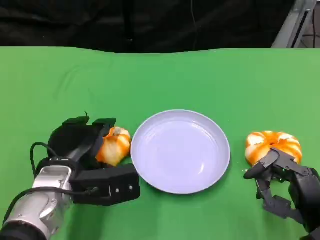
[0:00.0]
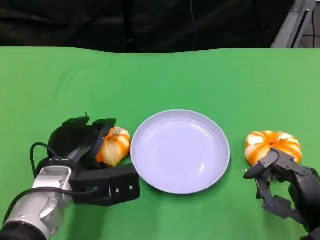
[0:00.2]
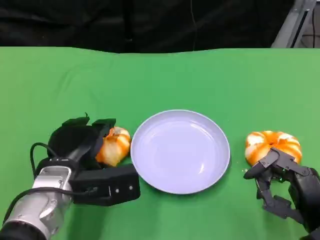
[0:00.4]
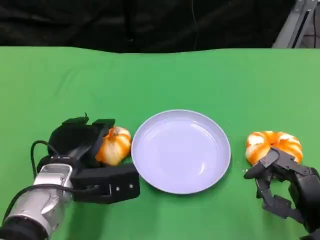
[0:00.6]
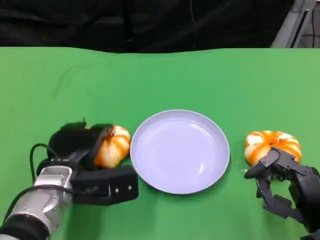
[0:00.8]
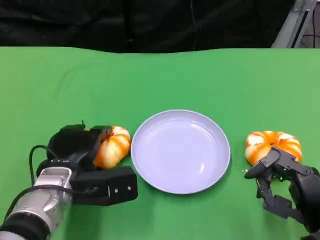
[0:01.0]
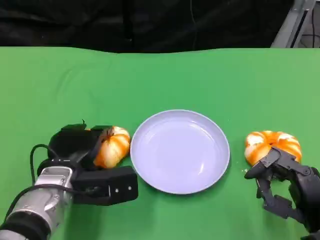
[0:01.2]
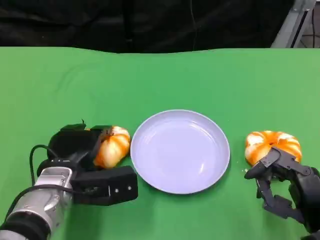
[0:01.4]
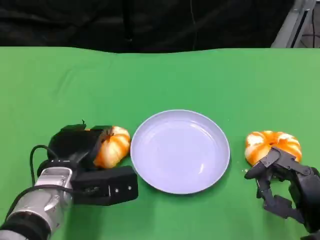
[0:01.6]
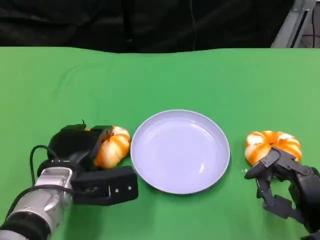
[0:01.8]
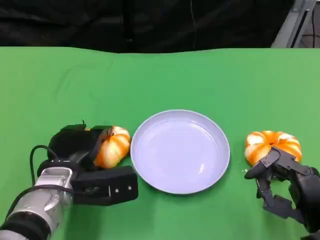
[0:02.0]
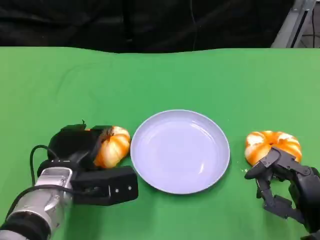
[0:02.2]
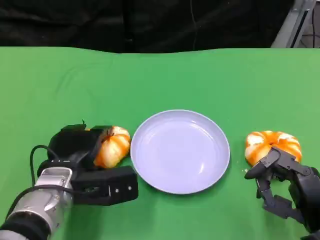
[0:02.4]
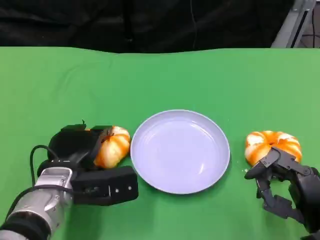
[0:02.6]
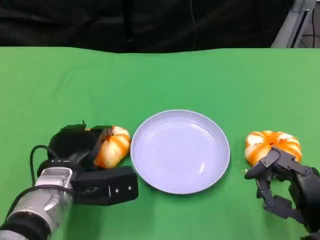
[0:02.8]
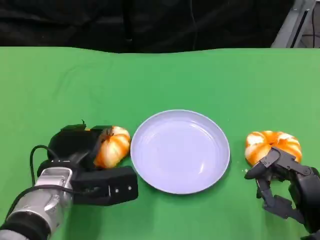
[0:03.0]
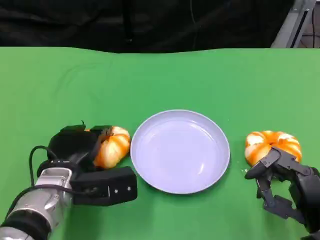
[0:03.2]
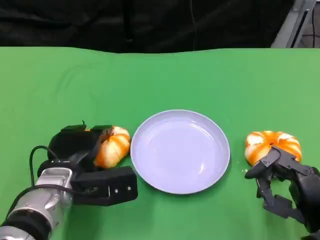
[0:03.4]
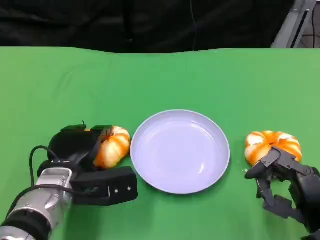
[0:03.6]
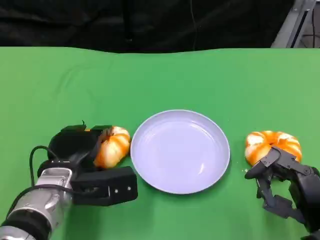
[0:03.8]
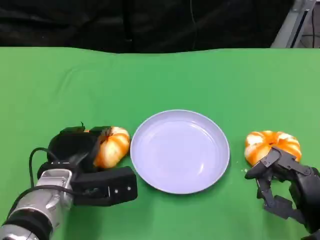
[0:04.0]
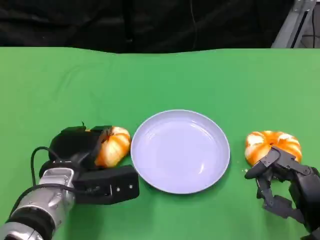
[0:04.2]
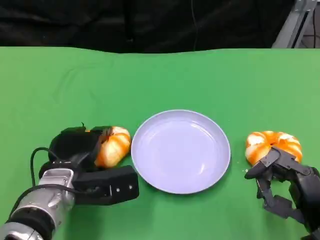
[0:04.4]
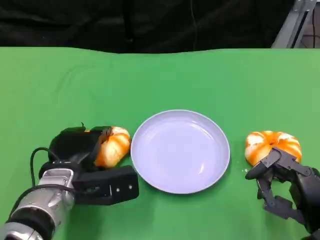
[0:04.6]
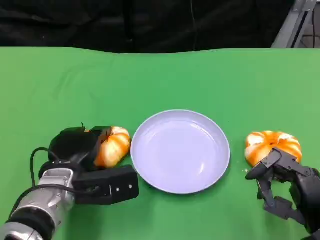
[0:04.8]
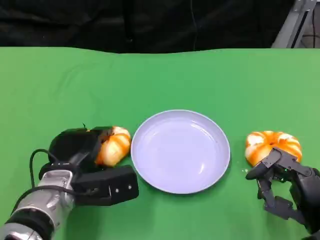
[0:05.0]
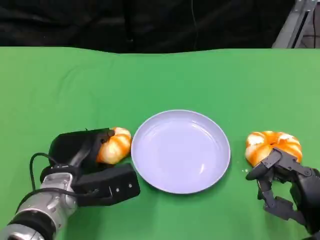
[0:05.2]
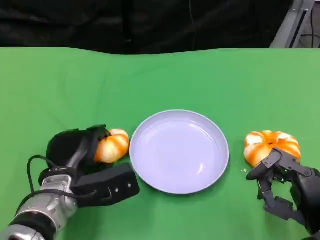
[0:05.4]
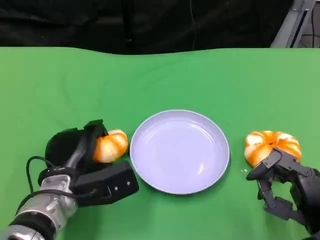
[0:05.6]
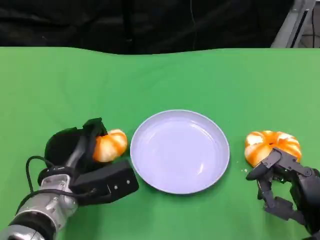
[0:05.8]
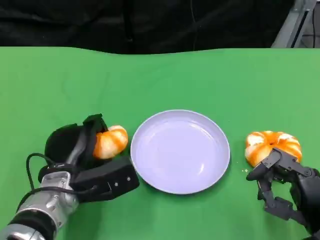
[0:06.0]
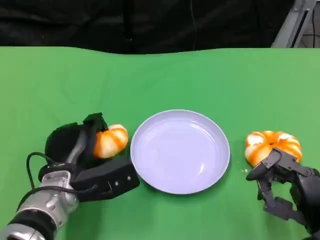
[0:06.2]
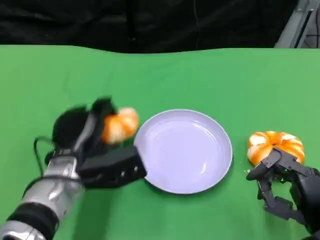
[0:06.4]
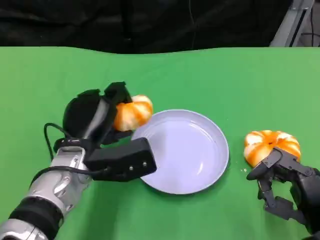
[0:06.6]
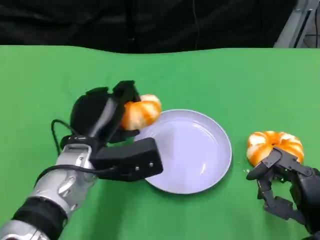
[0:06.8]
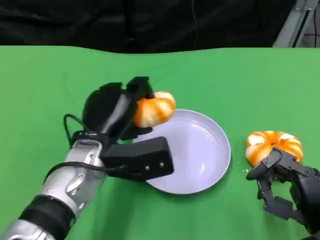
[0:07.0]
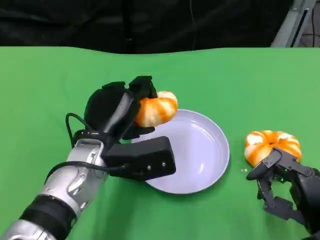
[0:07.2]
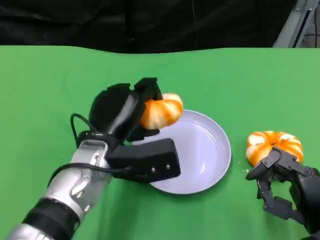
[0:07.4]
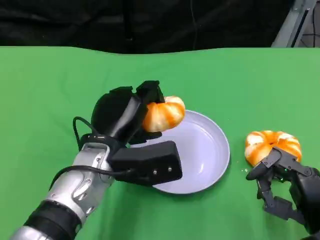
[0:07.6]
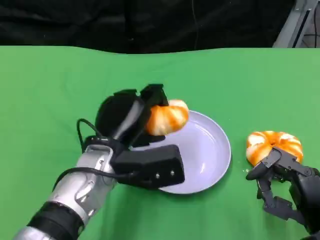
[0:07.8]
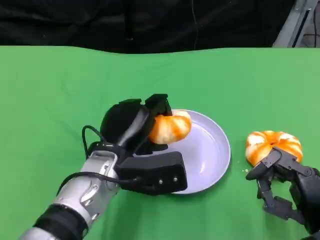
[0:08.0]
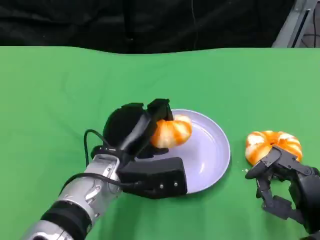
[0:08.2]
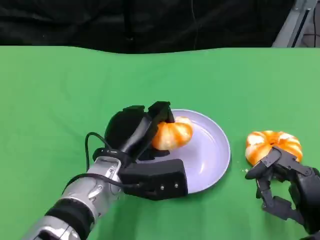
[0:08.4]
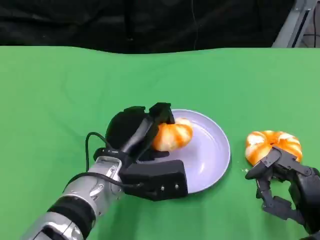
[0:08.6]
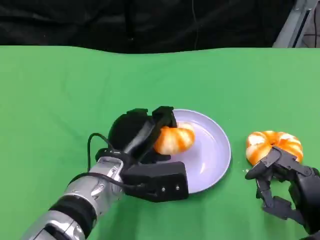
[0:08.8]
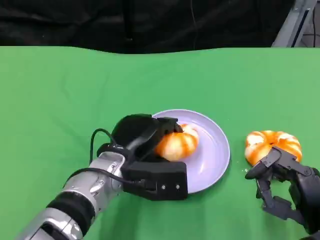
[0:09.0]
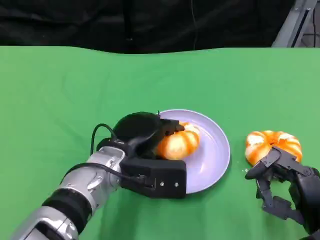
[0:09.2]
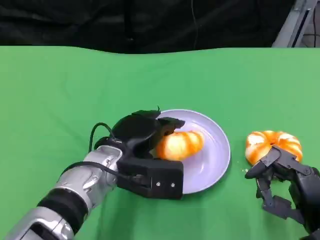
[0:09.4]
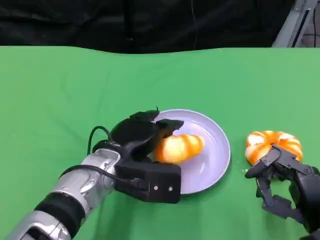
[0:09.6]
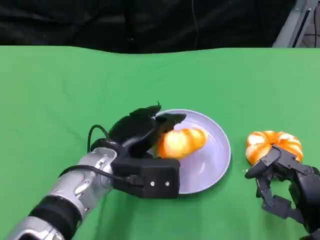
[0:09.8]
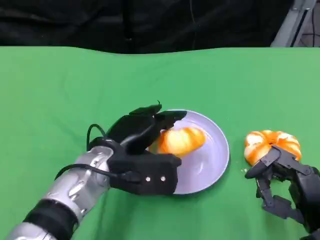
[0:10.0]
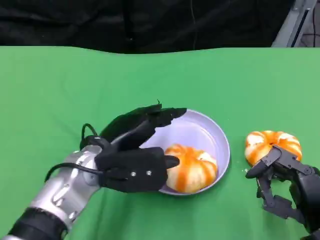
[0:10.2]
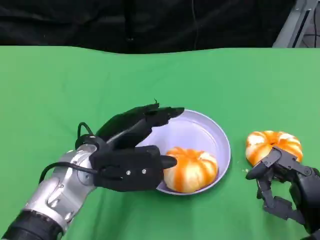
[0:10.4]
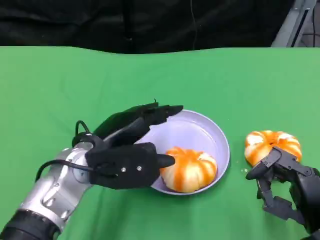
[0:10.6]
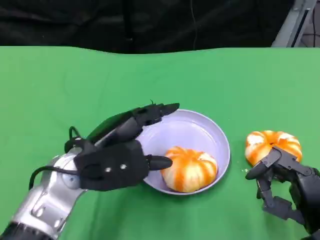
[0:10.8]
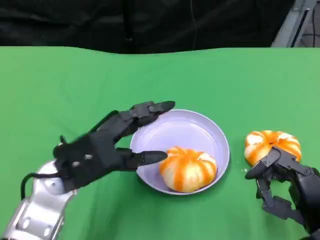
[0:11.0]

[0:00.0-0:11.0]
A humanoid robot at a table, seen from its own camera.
Task of the whole recording: Grasp the bread from the table and place it into the plate.
0:00.0 to 0:01.6: The hands make only small movements.
0:01.6 to 0:04.8: Both hands stay put.
0:04.8 to 0:06.2: The hands make only small movements.
0:06.2 to 0:07.8: The left hand heads to the right and upward, covering roughly 10 cm.
0:09.4 to 0:11.0: The left hand is displaced to the left by some 5 cm.

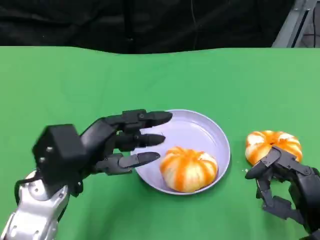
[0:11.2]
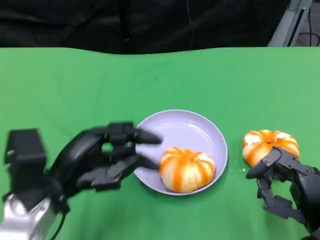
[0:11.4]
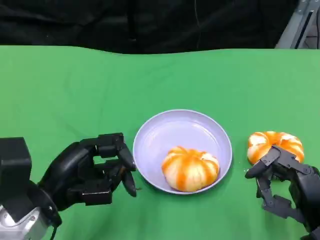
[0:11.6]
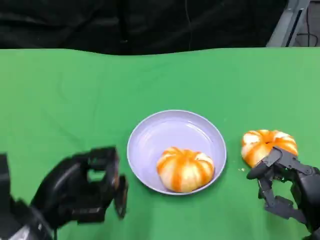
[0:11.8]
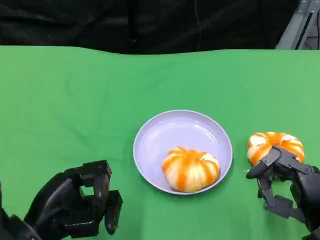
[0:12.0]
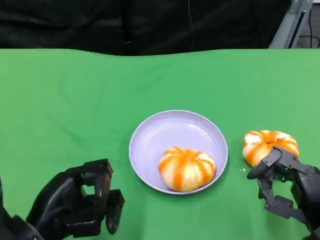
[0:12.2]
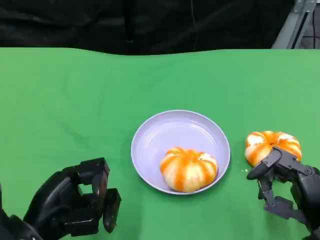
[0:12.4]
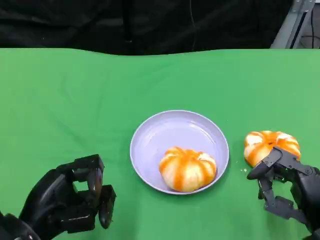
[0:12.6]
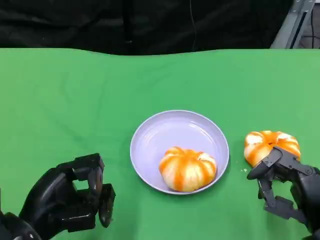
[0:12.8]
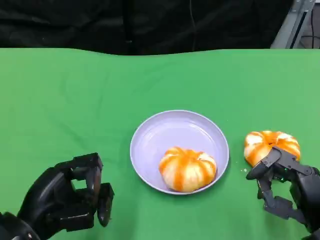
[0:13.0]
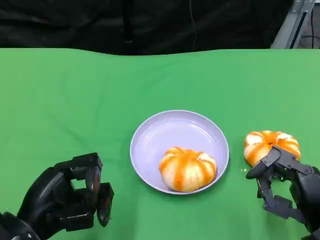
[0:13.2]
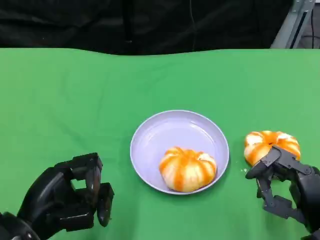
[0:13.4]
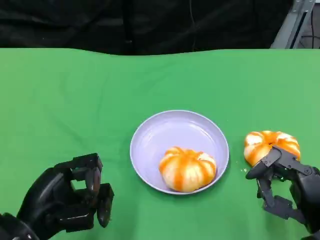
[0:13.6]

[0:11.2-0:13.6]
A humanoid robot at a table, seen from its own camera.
Task of the whole recording: Grasp the bread from the table and place it into the plate.
0:11.2 to 0:12.4: The left hand moves backward, roughly 5 cm.
0:12.4 to 0:13.6: Neither hand changes place.

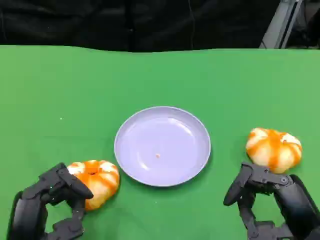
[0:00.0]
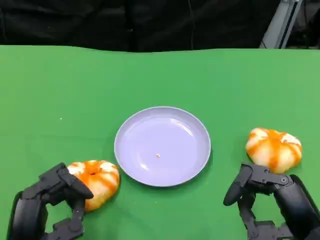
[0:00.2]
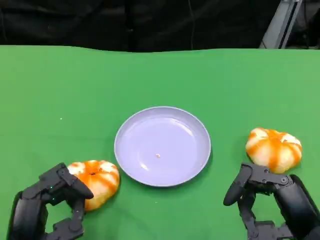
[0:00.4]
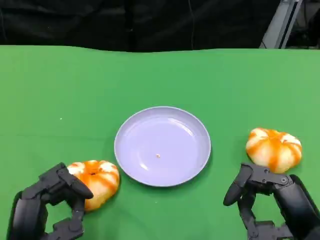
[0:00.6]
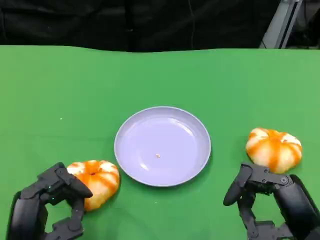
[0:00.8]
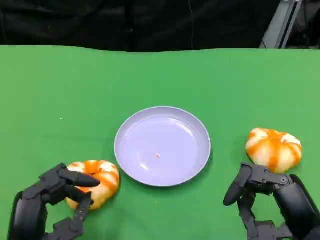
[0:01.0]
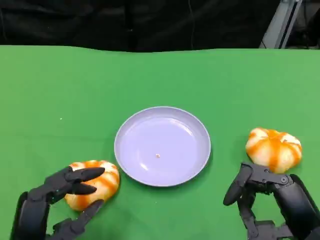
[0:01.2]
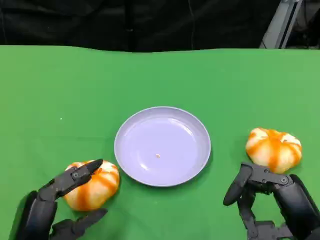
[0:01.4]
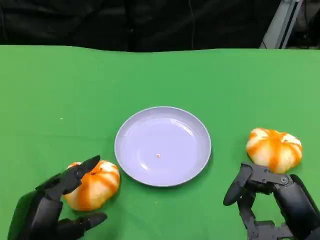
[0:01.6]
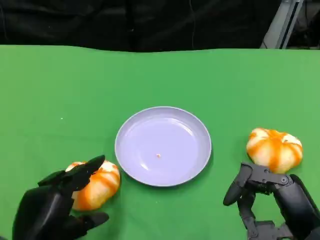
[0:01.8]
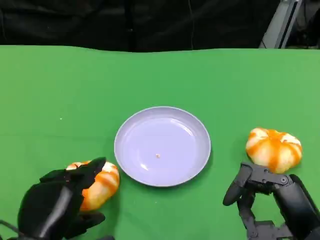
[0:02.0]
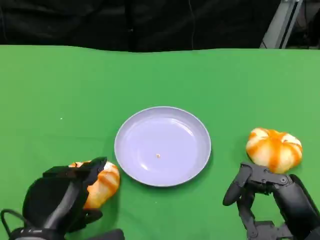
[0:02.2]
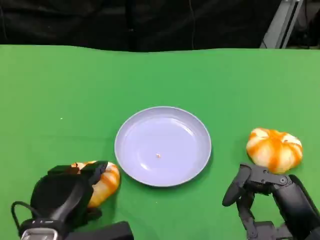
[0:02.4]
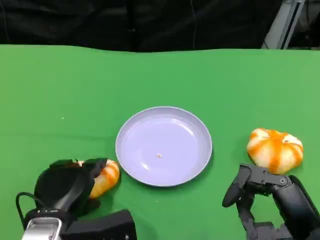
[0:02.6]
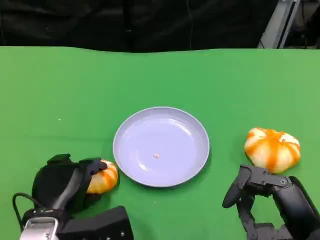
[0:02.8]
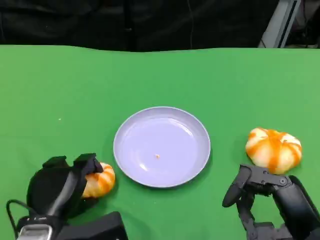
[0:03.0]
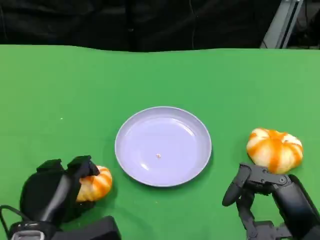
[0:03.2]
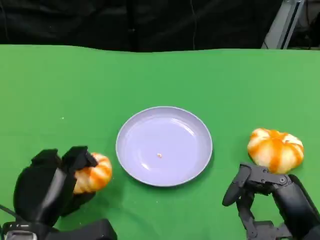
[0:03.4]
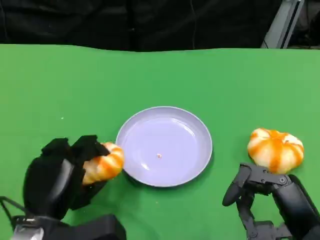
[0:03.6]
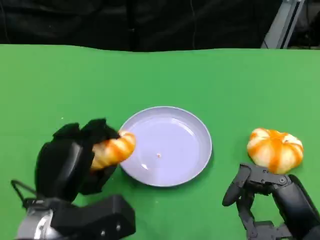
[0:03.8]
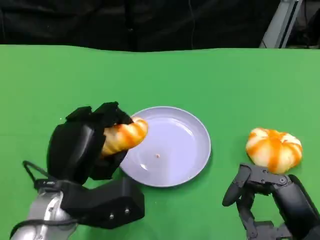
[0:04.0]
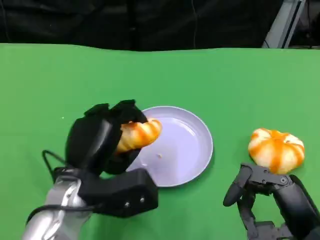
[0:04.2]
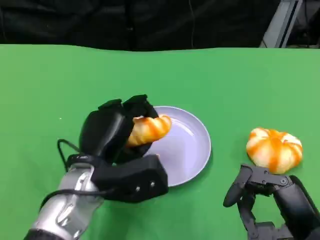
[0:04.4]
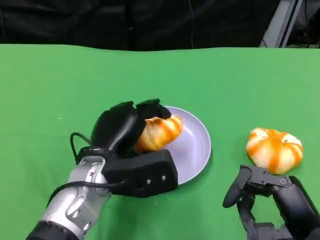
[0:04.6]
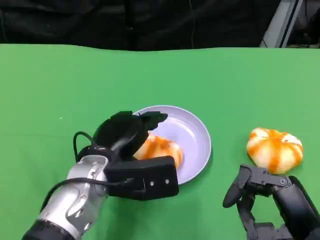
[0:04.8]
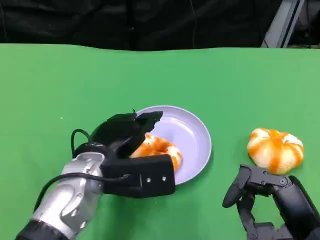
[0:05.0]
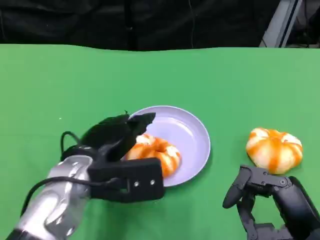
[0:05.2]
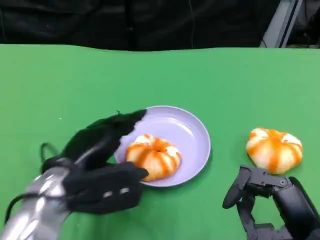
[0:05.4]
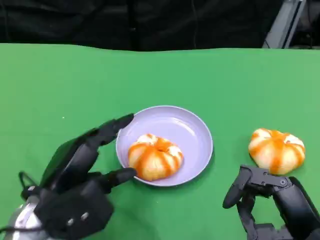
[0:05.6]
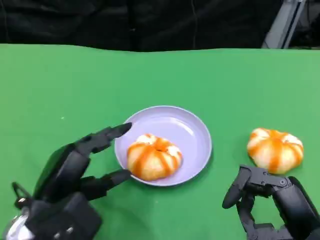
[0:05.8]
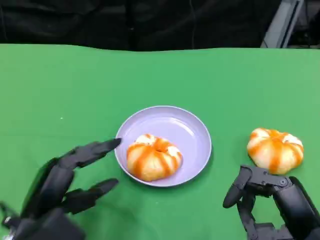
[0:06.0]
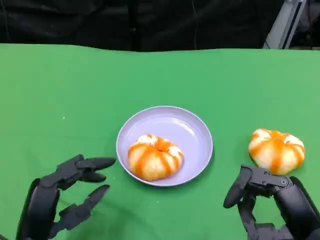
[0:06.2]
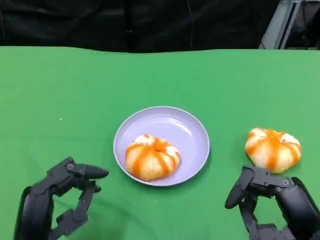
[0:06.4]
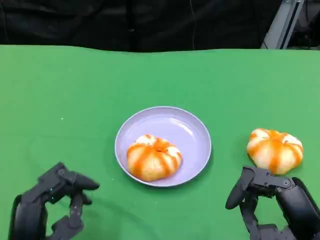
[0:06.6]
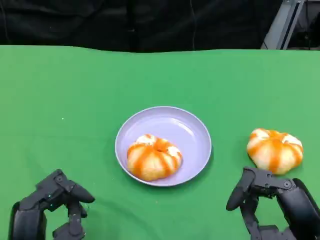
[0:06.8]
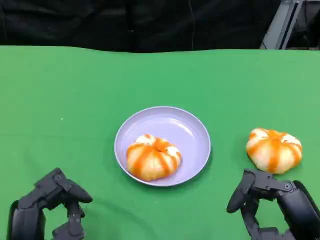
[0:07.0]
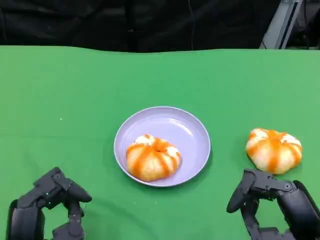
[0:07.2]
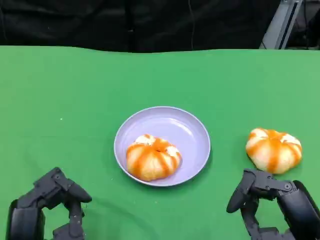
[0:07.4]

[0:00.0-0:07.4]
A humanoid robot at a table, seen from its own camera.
Task of the whole recording: Grasp the bread from the table and place it into the plate.
0:01.4 to 0:03.0: The left hand shifts some 5 cm forward.
0:03.0 to 0:04.4: The left hand travels to the right, forward and upward by approximately 10 cm.
0:04.4 to 0:06.0: The left hand moves backward and to the left, about 15 cm.
0:06.0 to 0:07.4: The hands stay close to where they were, moving slightly.
